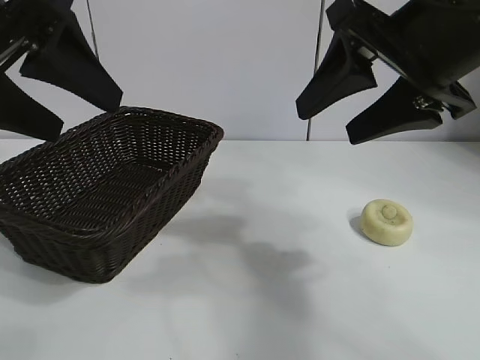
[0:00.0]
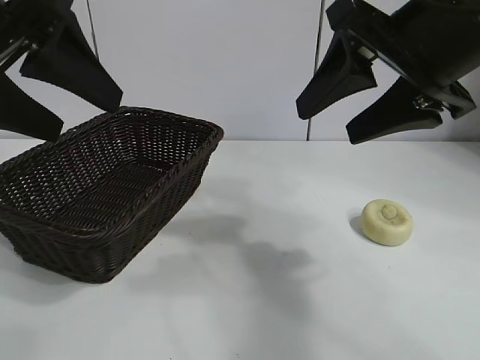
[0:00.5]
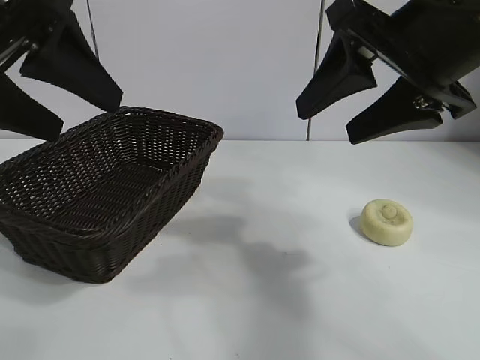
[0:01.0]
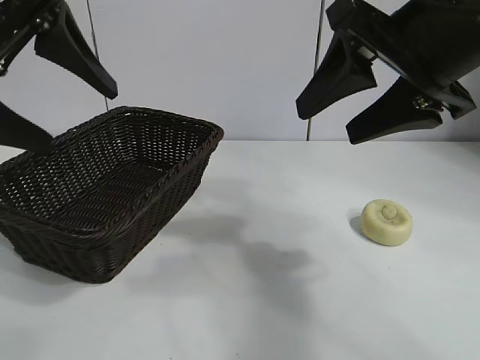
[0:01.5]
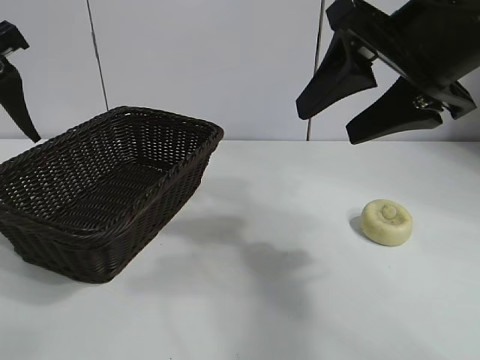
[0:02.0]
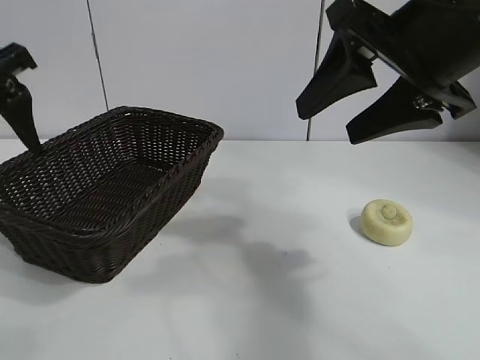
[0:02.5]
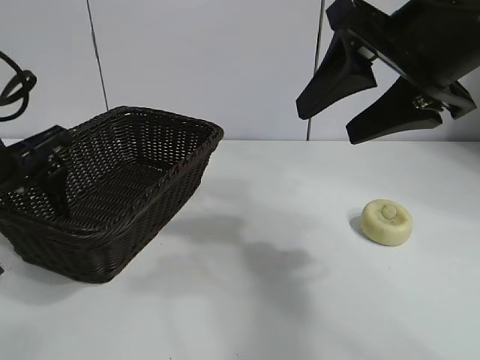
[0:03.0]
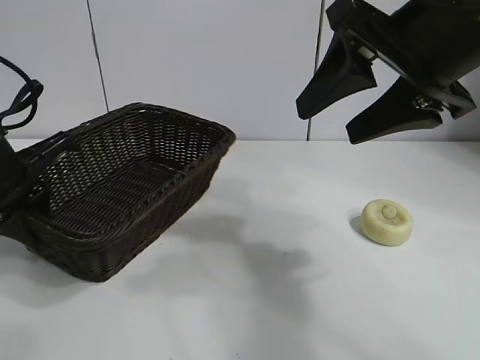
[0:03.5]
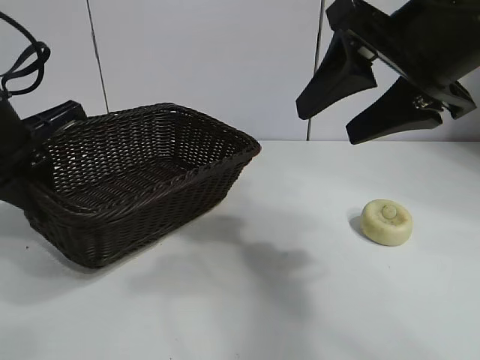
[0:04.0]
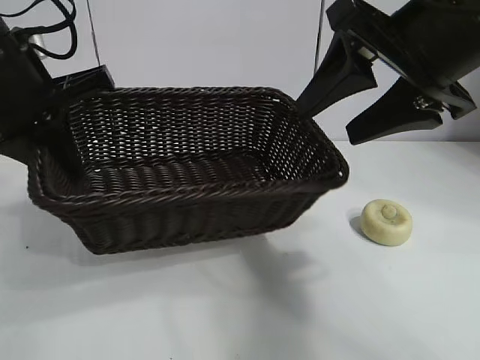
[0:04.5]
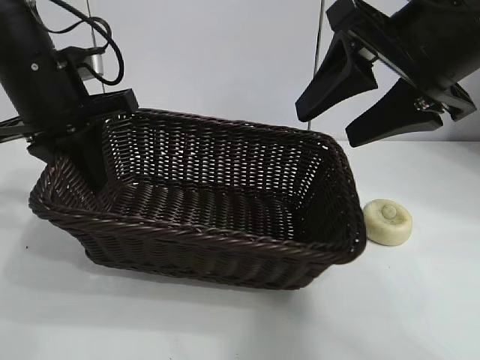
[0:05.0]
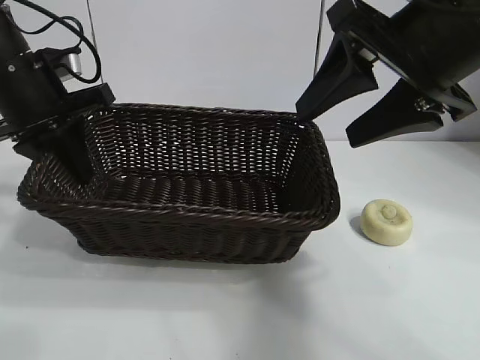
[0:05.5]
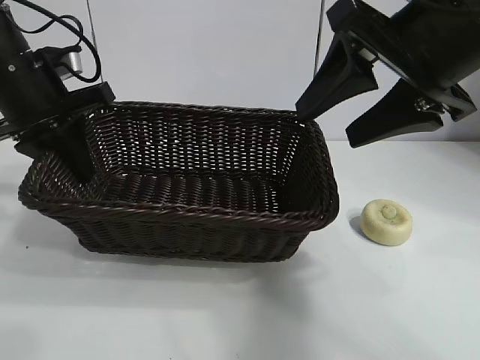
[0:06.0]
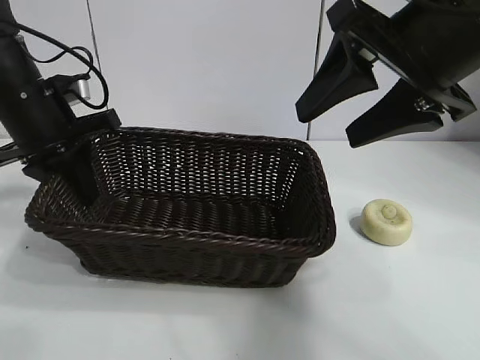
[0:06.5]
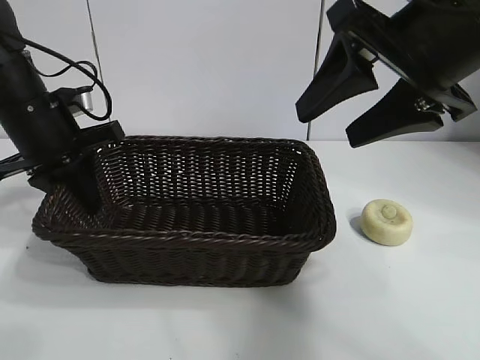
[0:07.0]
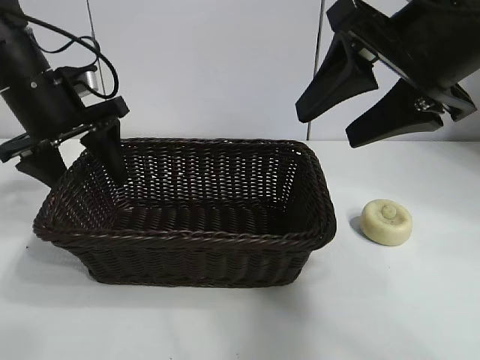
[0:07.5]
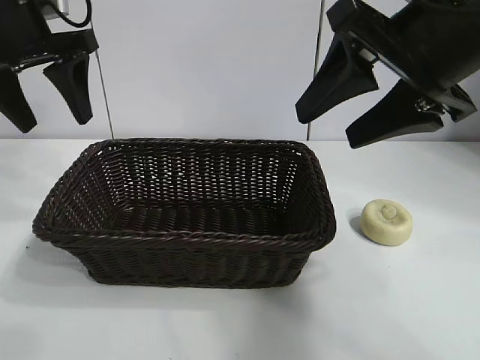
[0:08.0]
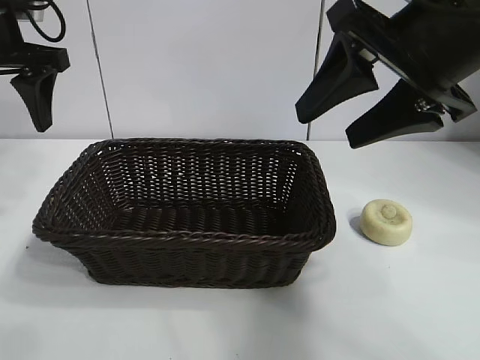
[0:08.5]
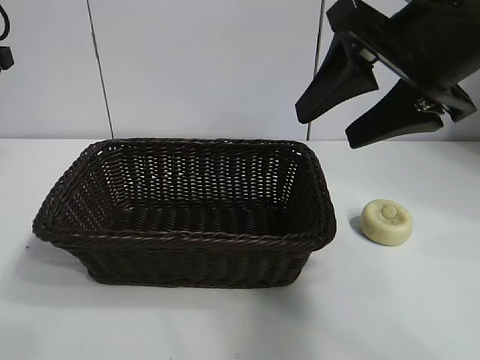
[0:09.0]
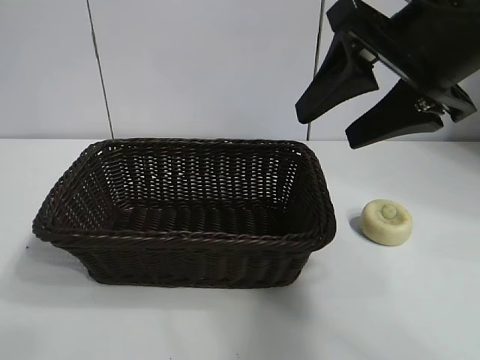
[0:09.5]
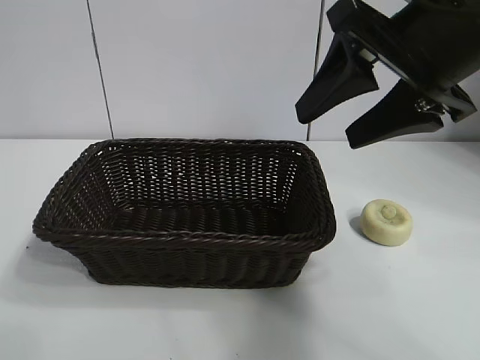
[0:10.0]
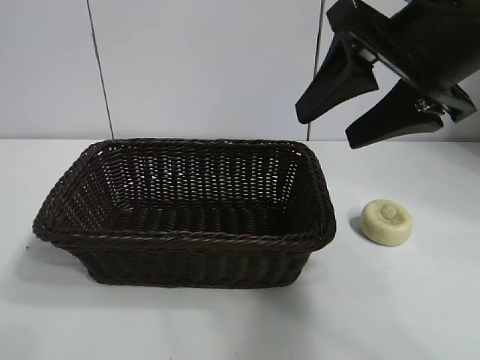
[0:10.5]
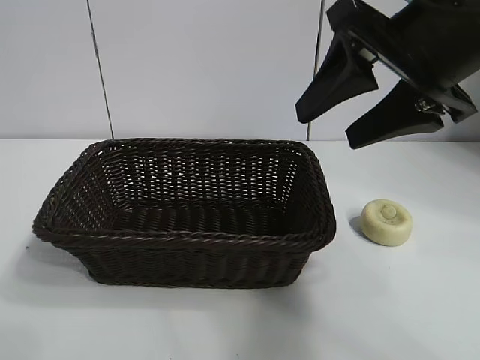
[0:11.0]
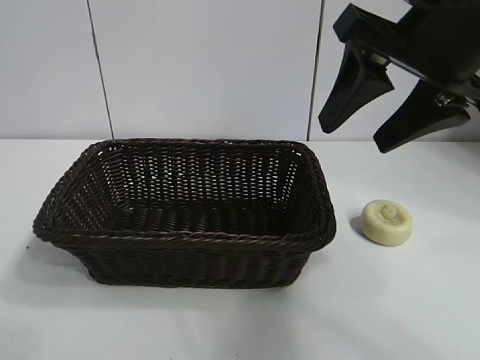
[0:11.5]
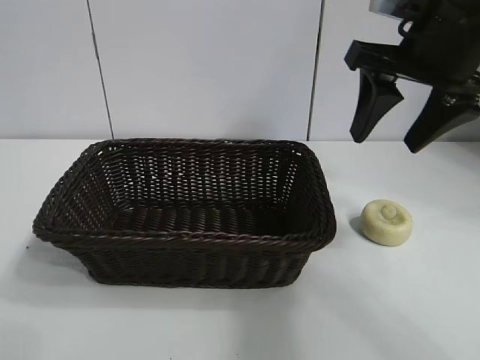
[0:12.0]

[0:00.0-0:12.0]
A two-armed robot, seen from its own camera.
Task of the whole recording: pick up the egg yolk pastry and put it into the basket.
Step, 0:01.5 to 0:03.0: Grasp the basket with left gripper.
Step, 0:04.0 to 0:07.5: Place the basket in the center of view with left gripper.

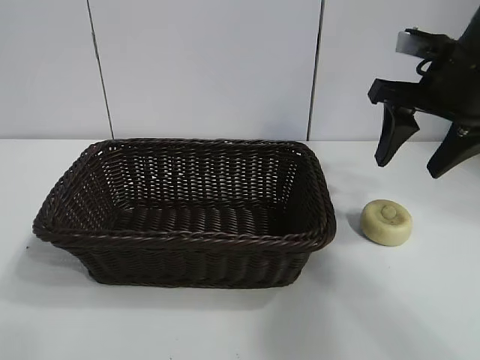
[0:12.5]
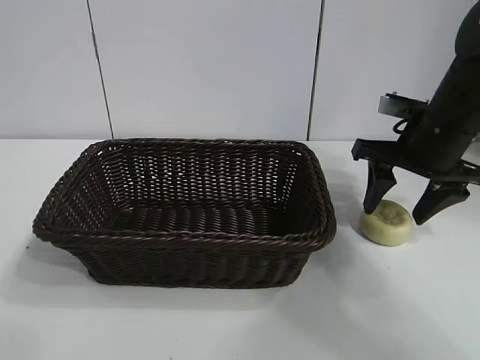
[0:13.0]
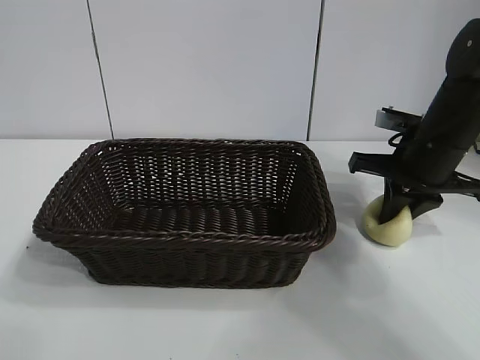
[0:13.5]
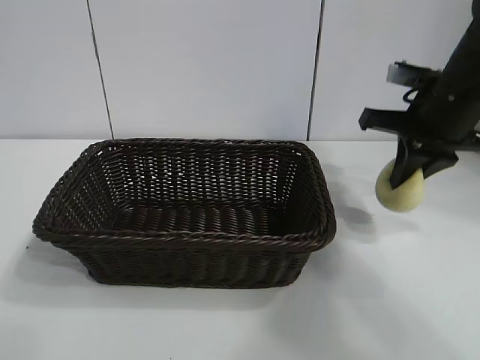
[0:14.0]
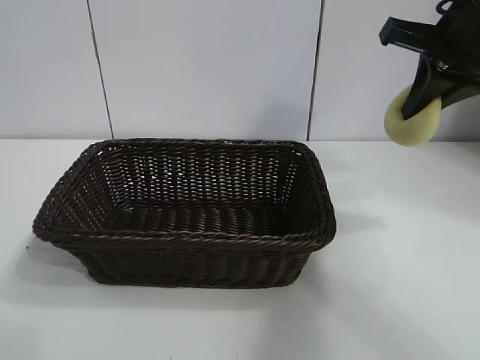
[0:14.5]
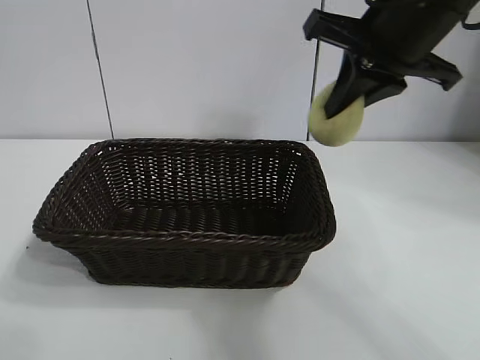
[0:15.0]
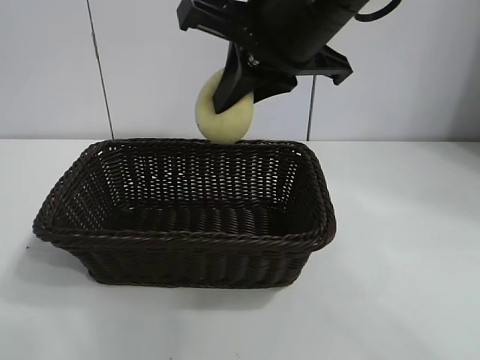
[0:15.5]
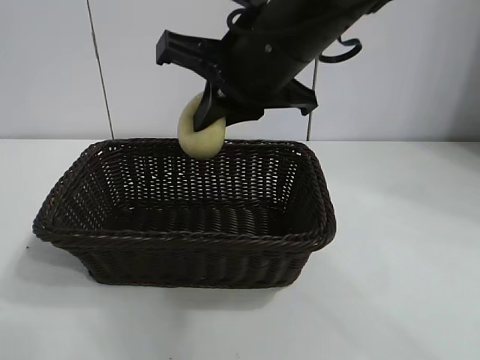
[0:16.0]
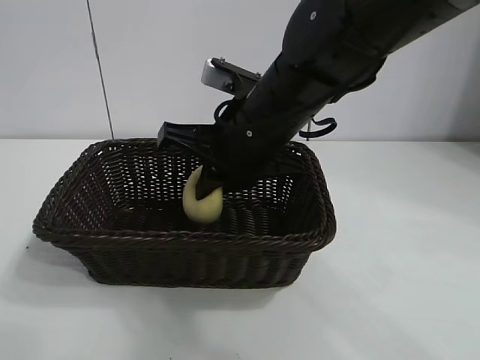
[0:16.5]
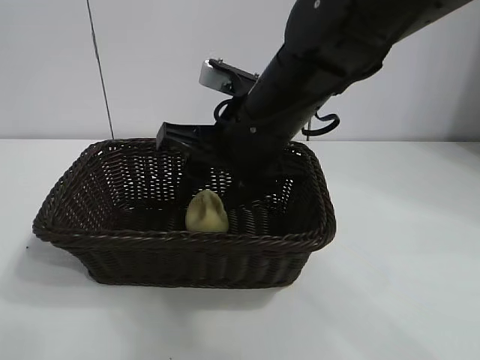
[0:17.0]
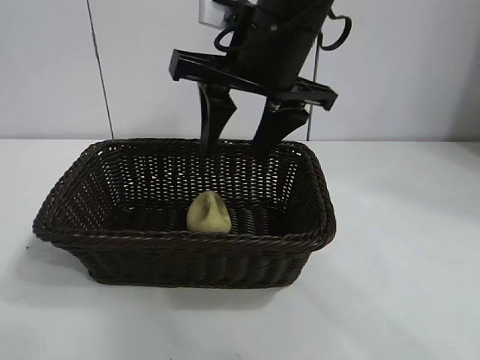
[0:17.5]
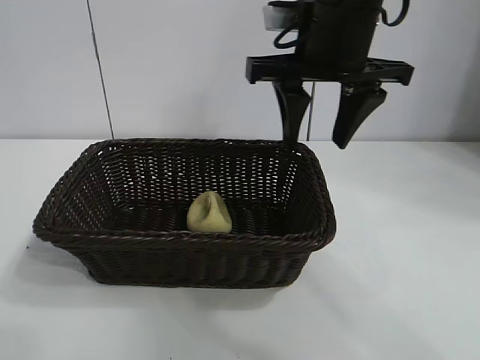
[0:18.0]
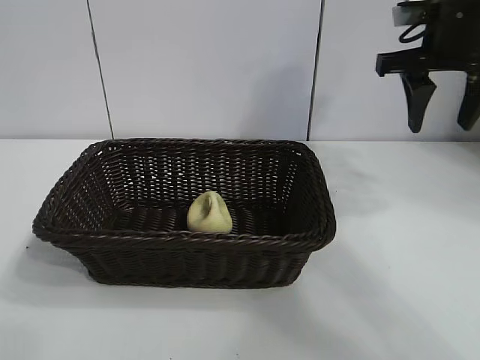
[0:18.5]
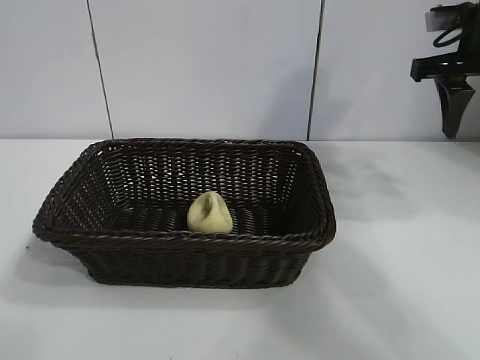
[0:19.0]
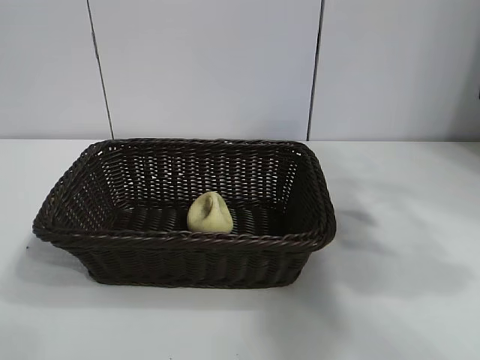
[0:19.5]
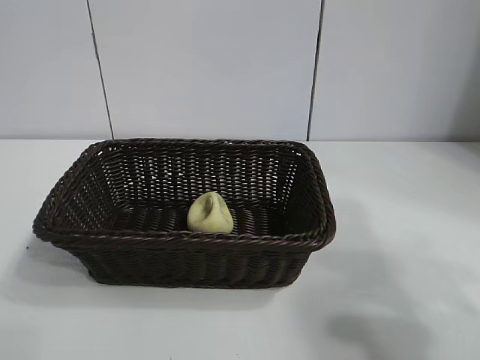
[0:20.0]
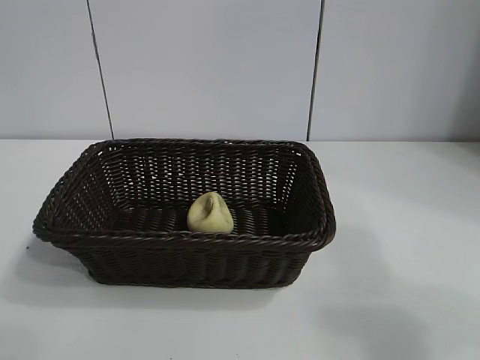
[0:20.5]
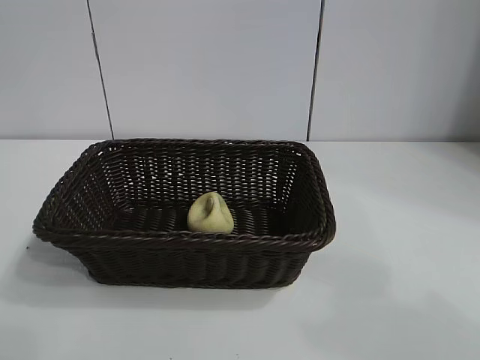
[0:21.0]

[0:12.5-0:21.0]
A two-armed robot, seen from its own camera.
Task of the whole recording: pick up the egg yolk pastry and put it into the basket.
Step, 0:14.0 to 0:17.0: Place the egg yolk pastry in the basket with right gripper.
